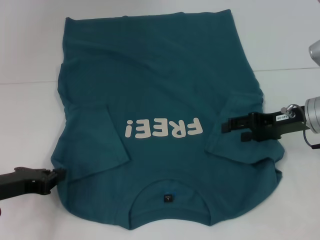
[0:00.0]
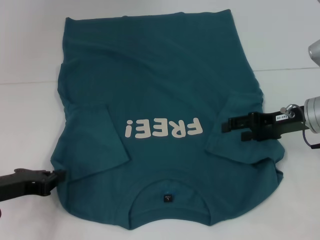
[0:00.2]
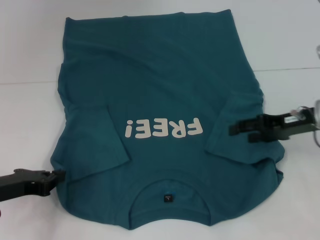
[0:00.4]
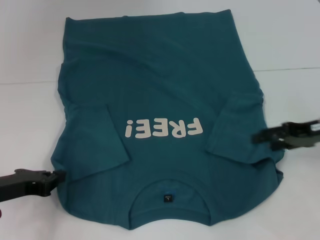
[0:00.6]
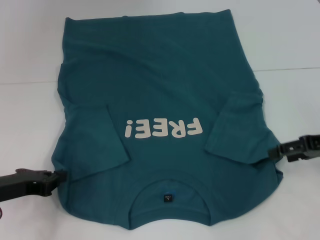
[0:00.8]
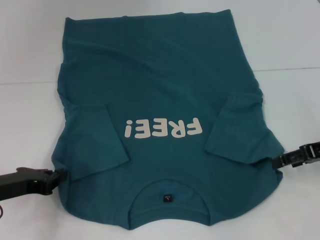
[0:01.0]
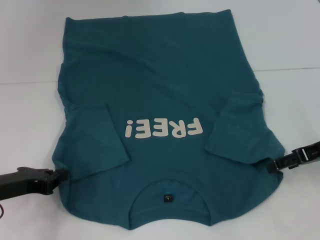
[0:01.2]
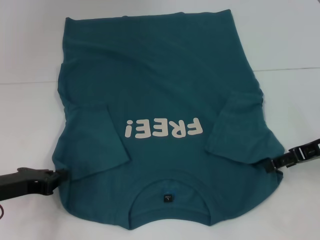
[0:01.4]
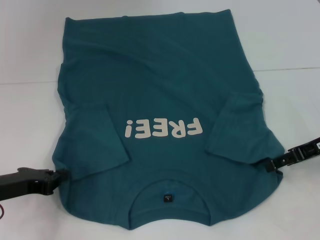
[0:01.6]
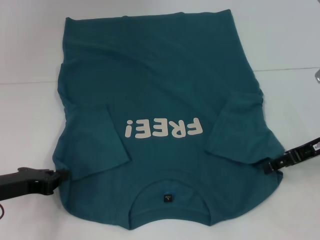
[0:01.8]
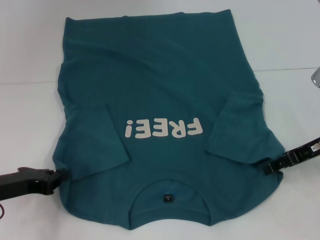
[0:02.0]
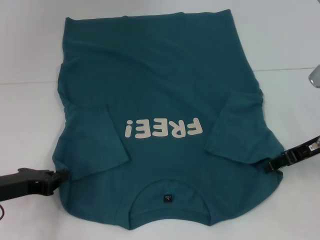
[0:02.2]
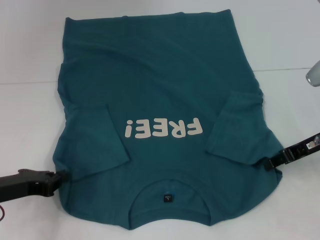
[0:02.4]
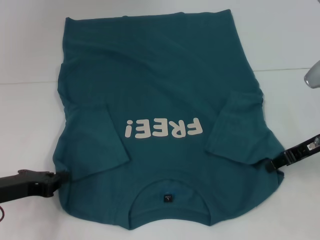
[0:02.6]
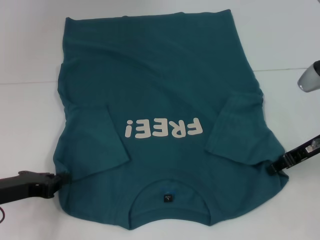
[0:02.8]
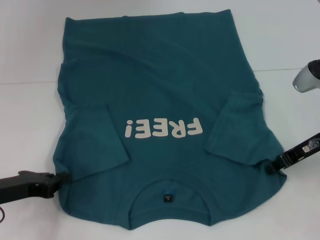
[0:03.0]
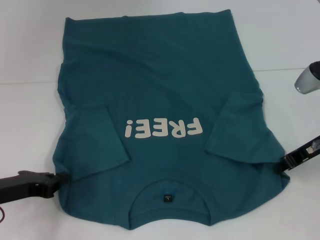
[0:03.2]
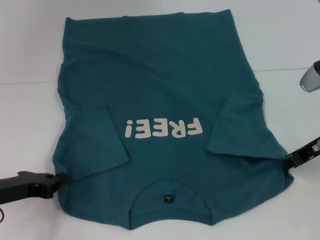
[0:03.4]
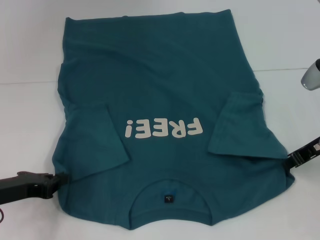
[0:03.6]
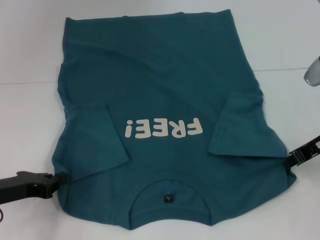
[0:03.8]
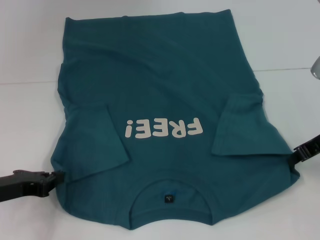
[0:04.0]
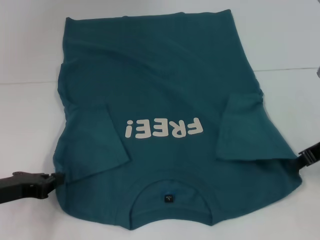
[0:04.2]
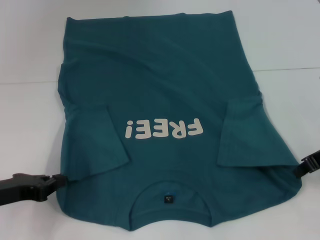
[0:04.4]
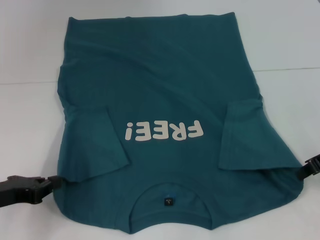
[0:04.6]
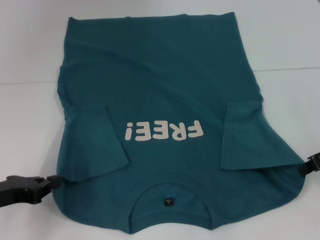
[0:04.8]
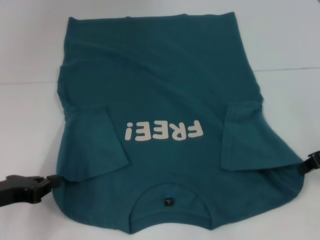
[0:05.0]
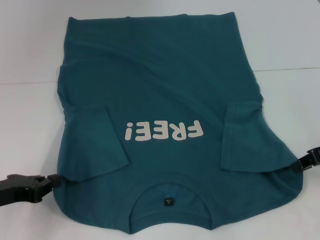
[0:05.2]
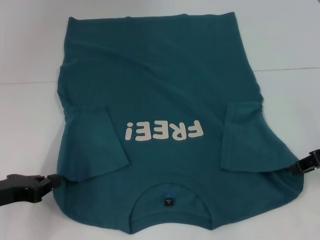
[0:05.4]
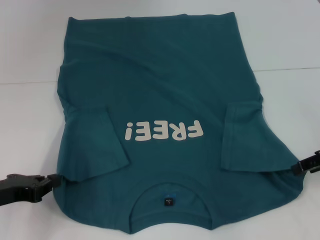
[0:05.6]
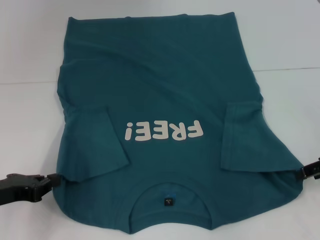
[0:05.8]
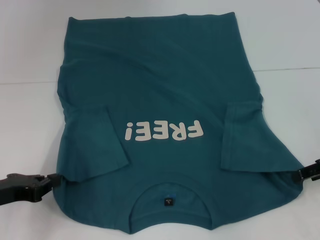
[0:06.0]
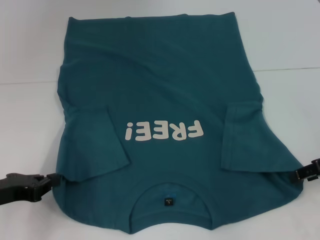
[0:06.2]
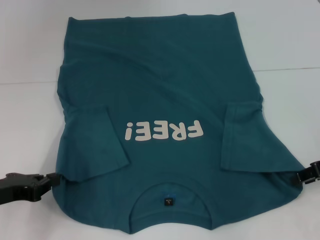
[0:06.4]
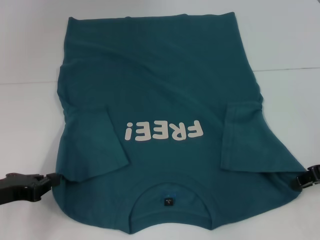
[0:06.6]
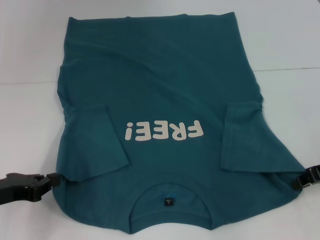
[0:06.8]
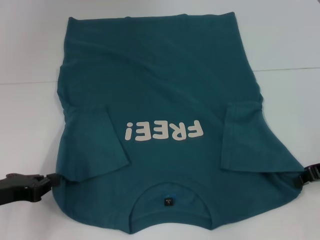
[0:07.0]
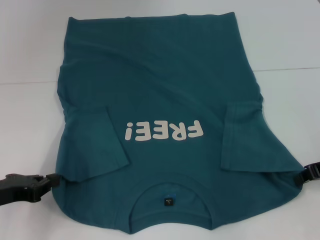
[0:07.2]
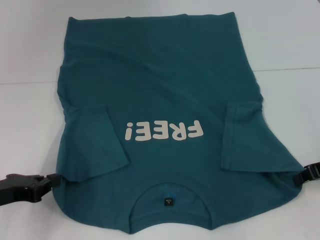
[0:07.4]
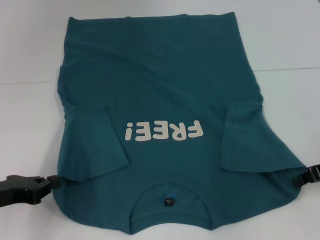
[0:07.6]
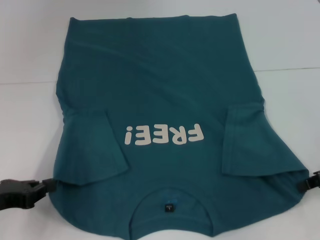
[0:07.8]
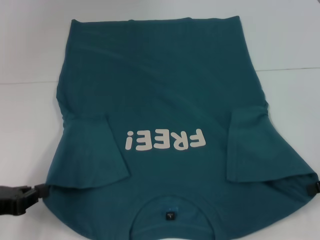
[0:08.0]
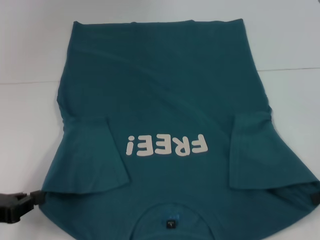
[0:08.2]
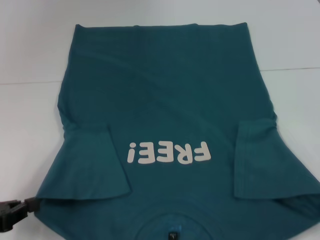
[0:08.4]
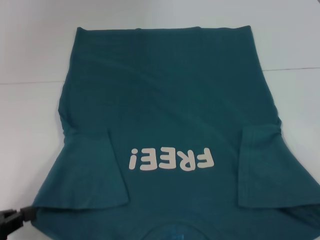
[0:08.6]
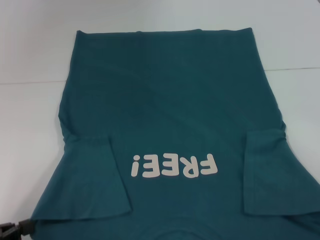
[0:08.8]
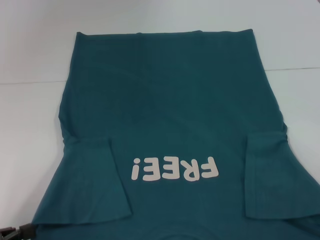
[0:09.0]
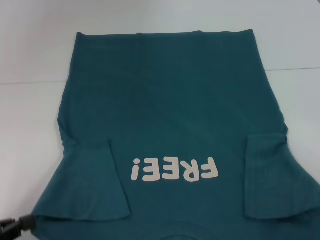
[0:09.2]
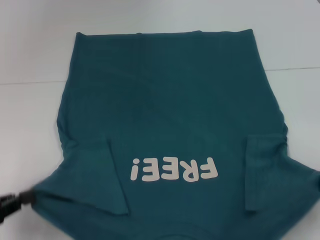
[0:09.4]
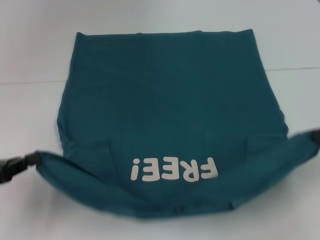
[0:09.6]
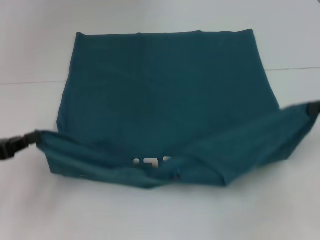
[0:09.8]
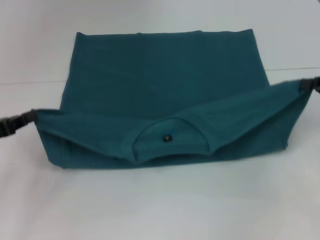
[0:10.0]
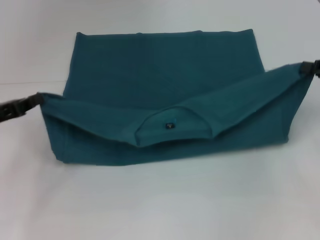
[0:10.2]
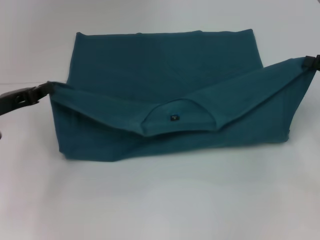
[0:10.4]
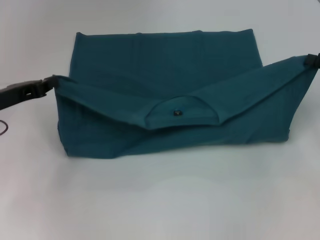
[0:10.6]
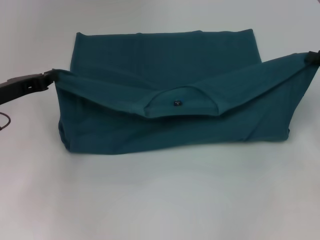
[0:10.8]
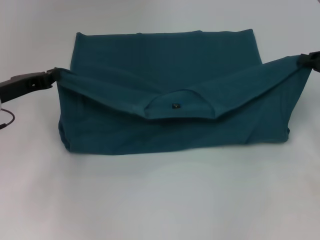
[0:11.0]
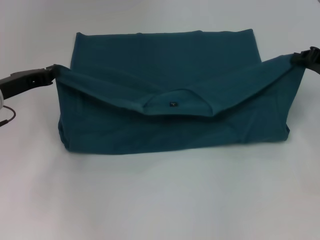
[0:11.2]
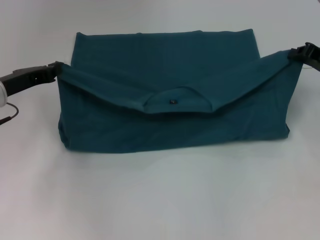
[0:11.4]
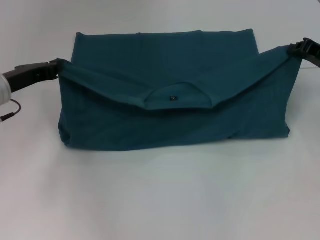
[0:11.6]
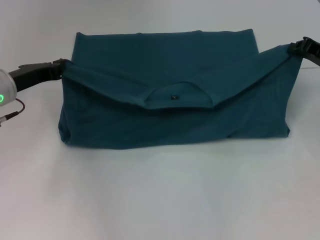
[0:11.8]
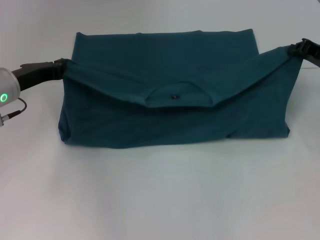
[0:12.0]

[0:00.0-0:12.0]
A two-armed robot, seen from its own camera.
Step, 0:00.0 to 0:08.6: Grab the bottom right corner with your right hand.
0:01.6 to 0:03.0: The right gripper closes its fingers.
0:03.0 to 0:04.4: There are only small adjustments of the grippers.
0:04.4 to 0:06.0: The right gripper opens.
0:07.6 to 0:09.0: The left gripper moves backward, roughly 10 cm. The right gripper is displaced backward and to the right by approximately 15 cm.
0:09.0 to 0:10.4: The grippers both shift forward by roughly 15 cm.
0:10.4 to 0:12.0: Both grippers move forward, roughly 5 cm.

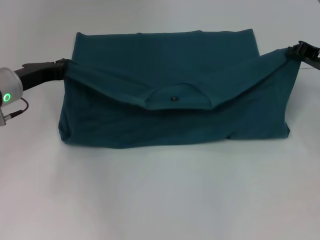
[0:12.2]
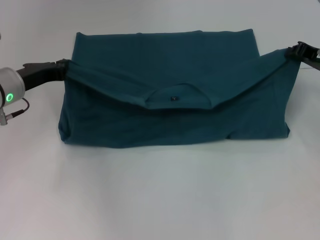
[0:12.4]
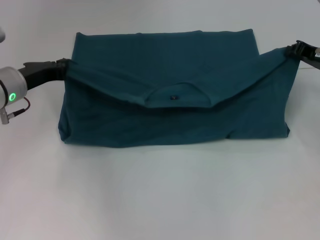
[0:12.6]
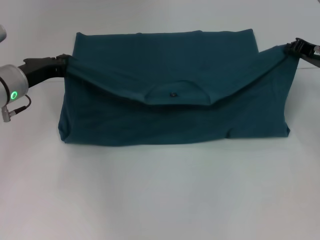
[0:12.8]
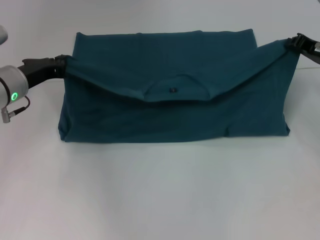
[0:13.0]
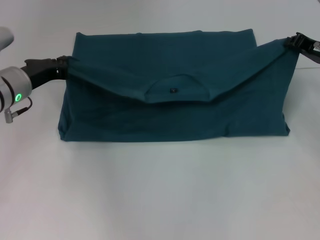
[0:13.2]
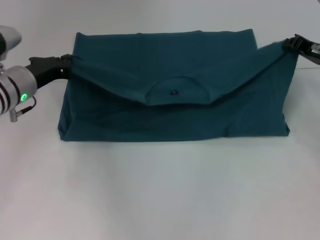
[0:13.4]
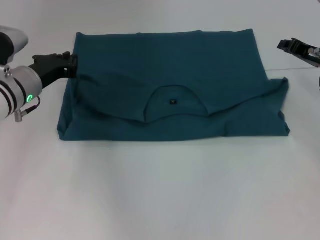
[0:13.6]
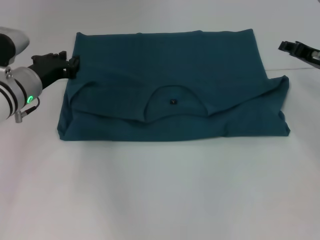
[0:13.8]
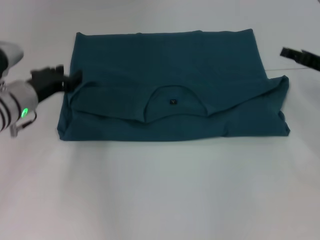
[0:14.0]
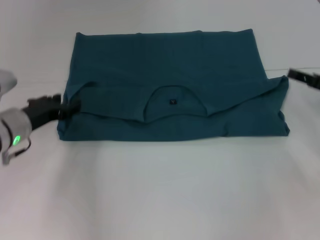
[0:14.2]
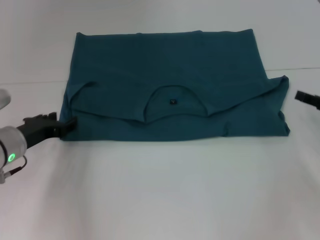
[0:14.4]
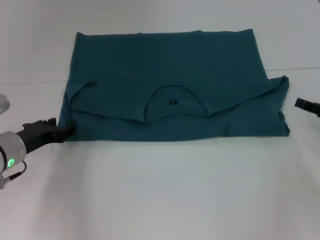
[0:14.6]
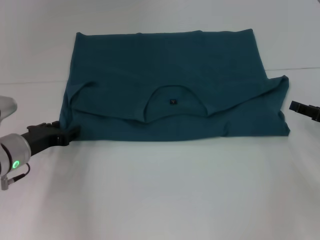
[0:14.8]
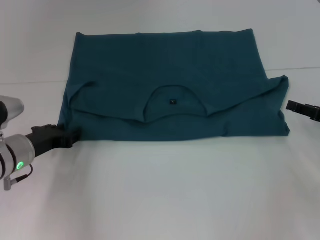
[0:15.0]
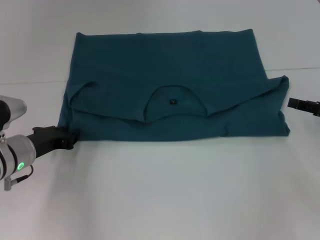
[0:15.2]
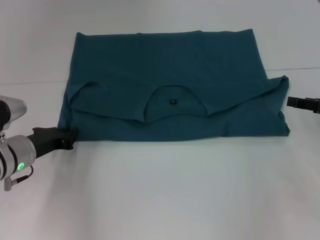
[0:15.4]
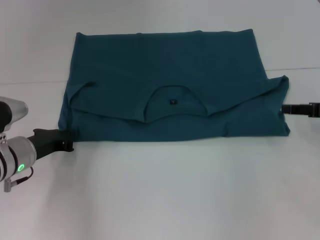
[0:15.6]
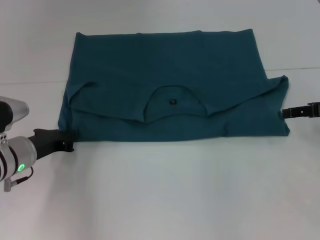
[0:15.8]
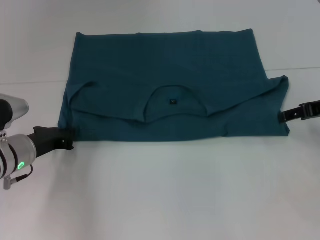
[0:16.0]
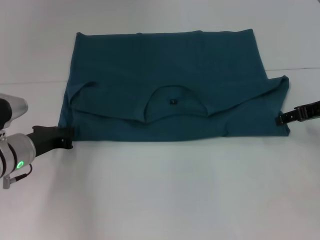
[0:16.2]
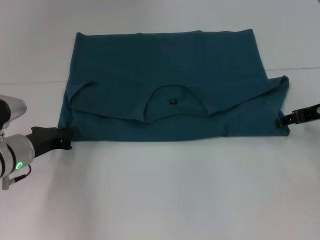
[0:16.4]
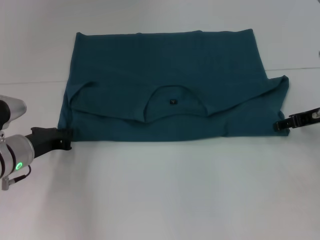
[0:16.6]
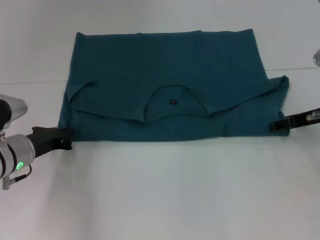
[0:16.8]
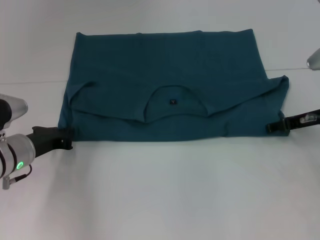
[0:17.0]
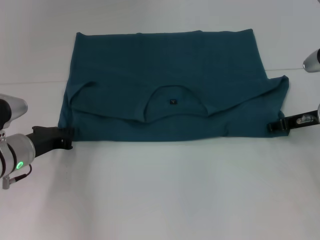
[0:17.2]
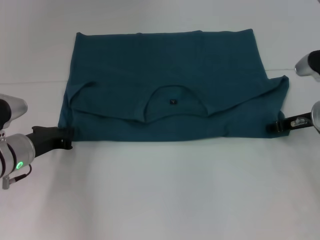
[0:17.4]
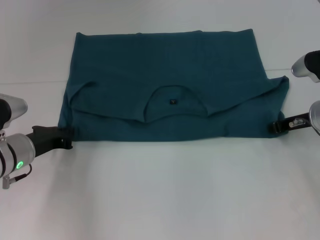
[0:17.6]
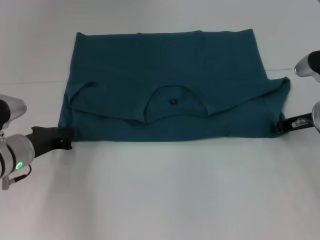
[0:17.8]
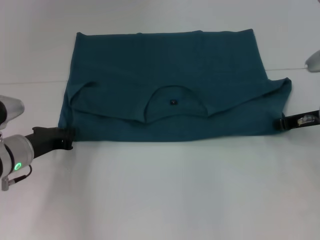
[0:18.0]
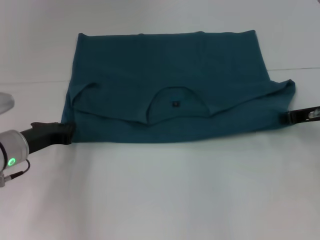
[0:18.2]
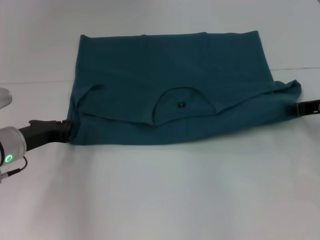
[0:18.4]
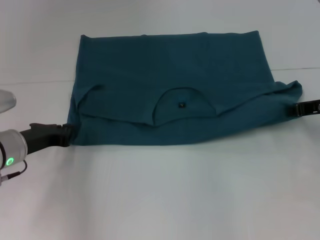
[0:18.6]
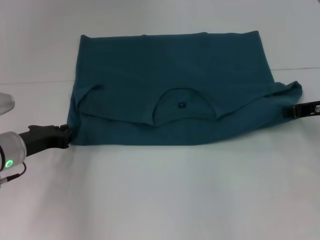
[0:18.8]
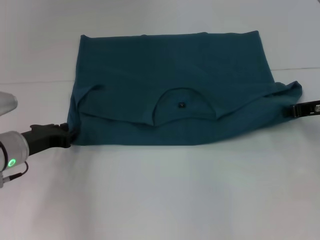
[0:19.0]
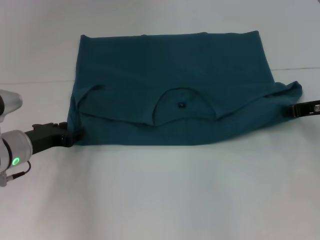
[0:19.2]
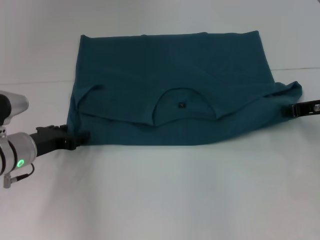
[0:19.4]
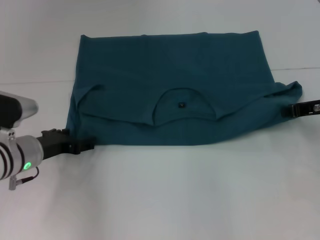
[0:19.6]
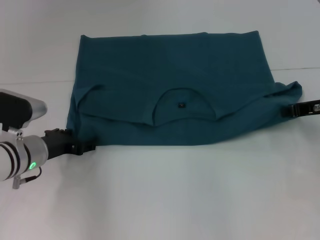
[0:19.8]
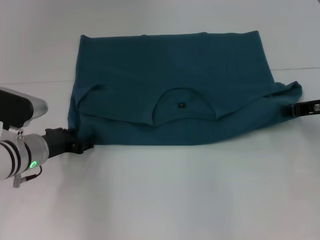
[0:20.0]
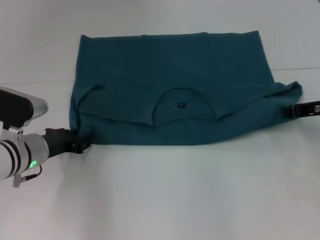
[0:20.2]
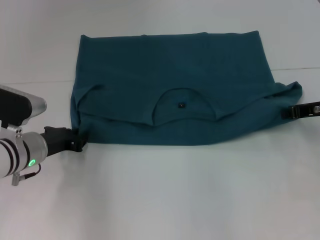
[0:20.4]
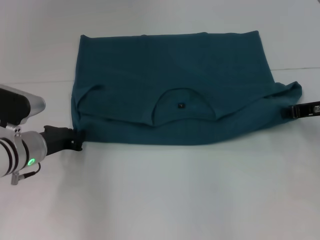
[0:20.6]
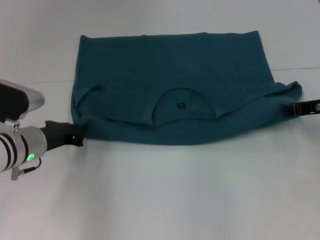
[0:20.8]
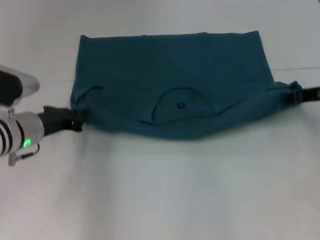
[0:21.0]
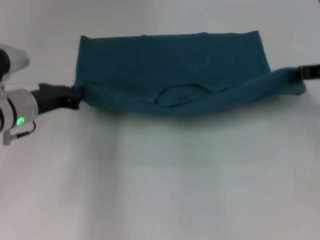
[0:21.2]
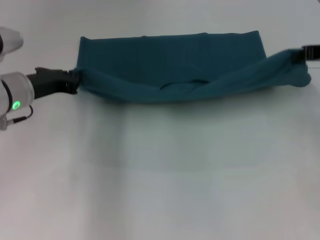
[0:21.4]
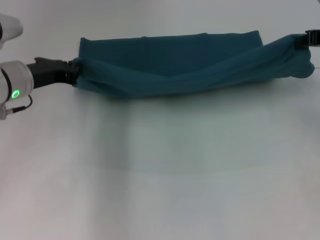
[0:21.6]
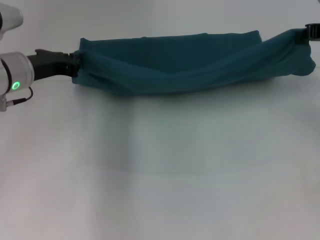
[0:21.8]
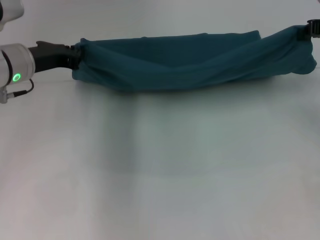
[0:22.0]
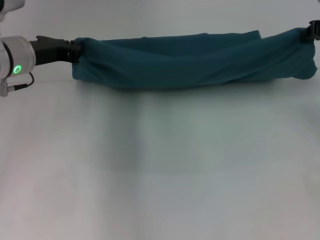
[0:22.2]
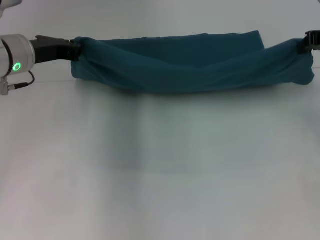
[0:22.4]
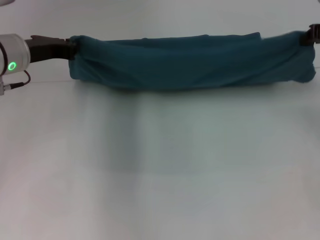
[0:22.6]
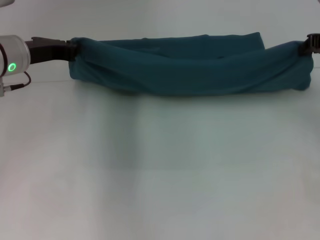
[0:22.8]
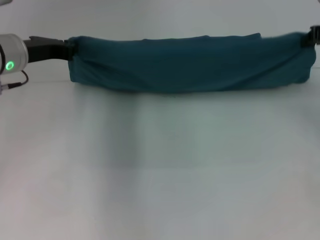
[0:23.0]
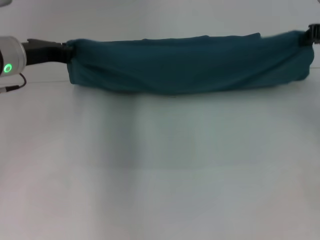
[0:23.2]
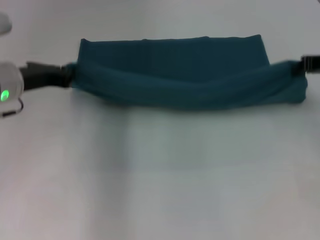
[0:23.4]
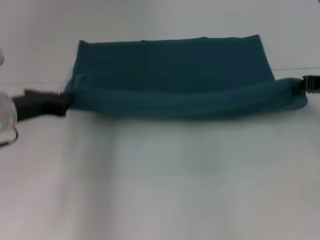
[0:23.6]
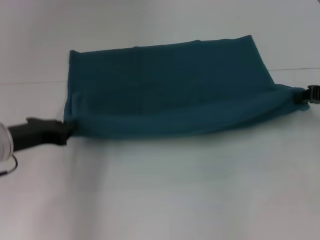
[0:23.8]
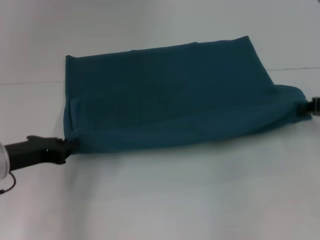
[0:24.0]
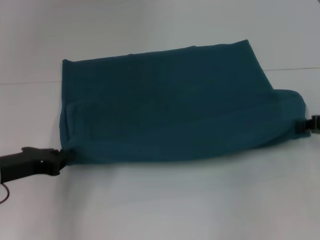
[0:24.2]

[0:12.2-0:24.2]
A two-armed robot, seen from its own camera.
0:12.2 to 0:13.8: The grippers make only small movements.
0:13.8 to 0:15.2: The left gripper shifts some 10 cm backward and downward, while the right gripper goes some 10 cm backward, and opens its fingers.
0:15.2 to 0:16.6: The right gripper travels forward and to the left by approximately 10 cm, while the left gripper closes.
0:16.6 to 0:18.2: The right gripper closes.
0:18.2 to 0:19.8: The left gripper opens.
0:19.8 to 0:21.2: Both grippers move upward, roughly 5 cm. The left gripper closes.
0:21.2 to 0:22.6: The grippers both shift upward by approximately 5 cm.
0:22.6 to 0:24.2: The right gripper goes roughly 15 cm downward and backward. Meanwhile the left gripper moves backward and downward, some 15 cm.
